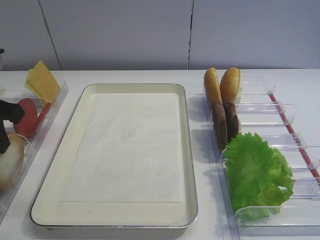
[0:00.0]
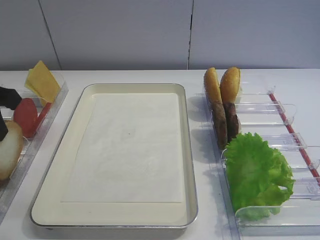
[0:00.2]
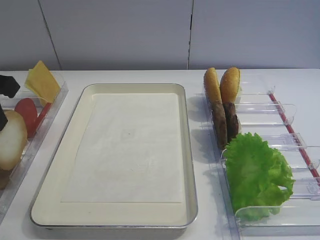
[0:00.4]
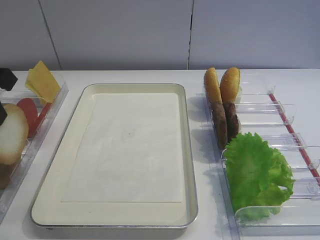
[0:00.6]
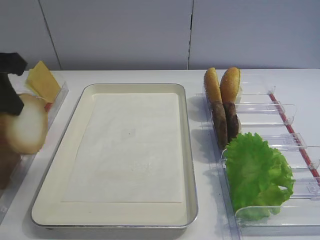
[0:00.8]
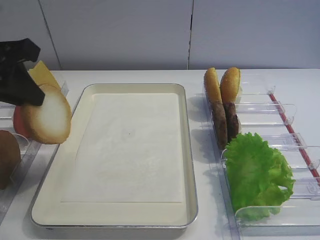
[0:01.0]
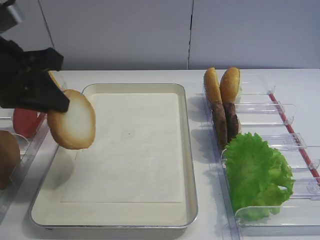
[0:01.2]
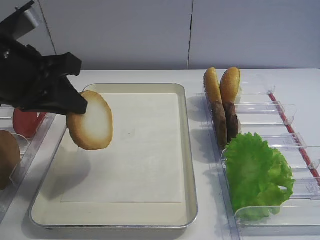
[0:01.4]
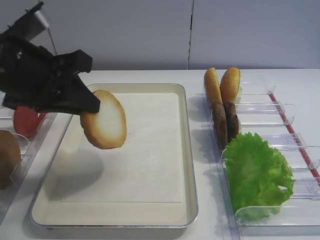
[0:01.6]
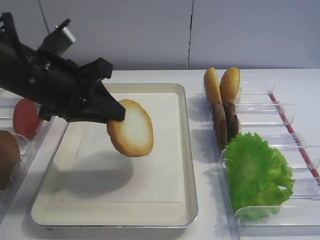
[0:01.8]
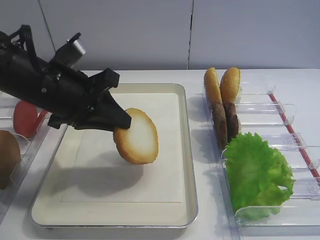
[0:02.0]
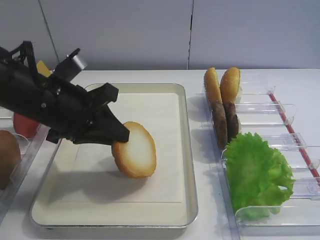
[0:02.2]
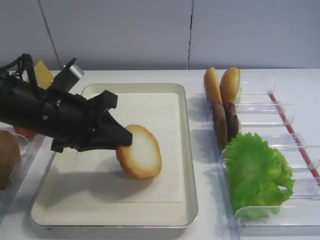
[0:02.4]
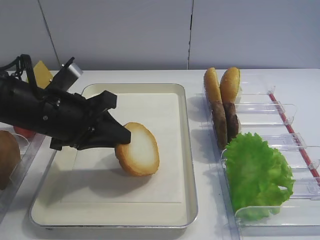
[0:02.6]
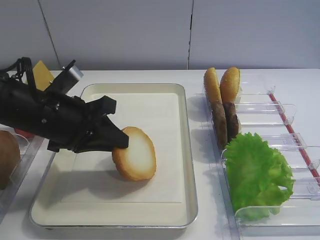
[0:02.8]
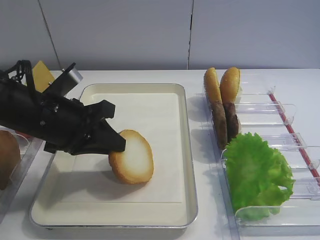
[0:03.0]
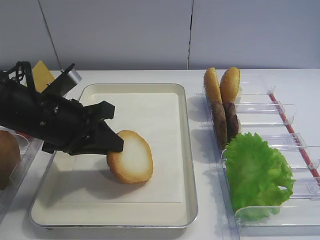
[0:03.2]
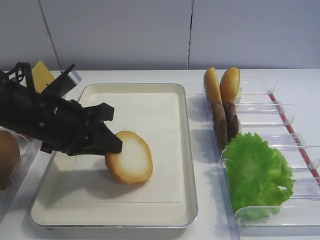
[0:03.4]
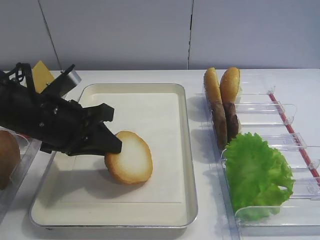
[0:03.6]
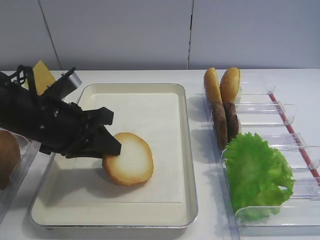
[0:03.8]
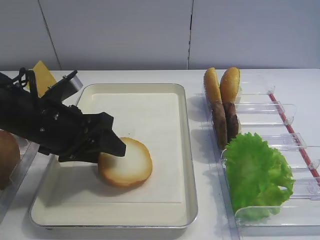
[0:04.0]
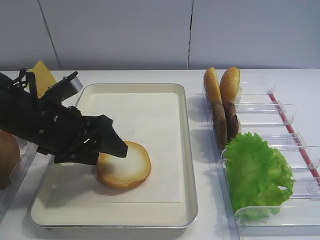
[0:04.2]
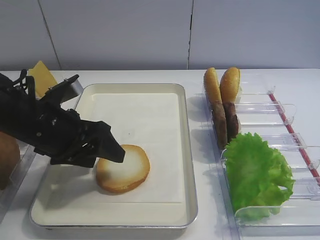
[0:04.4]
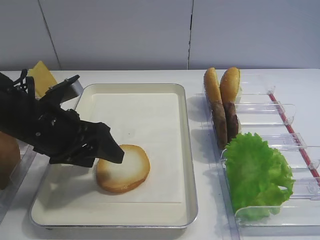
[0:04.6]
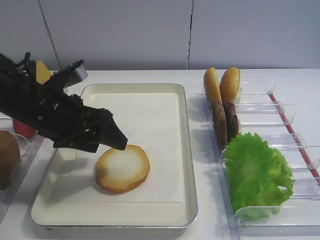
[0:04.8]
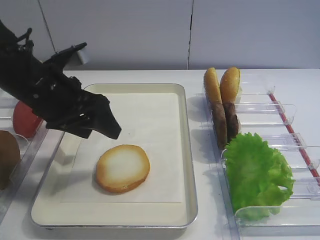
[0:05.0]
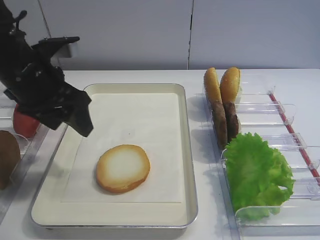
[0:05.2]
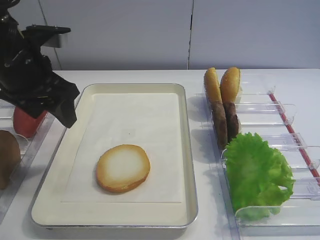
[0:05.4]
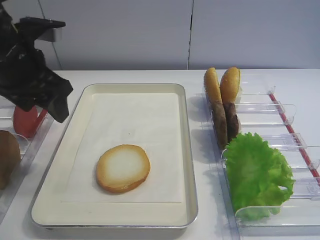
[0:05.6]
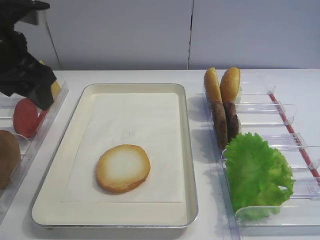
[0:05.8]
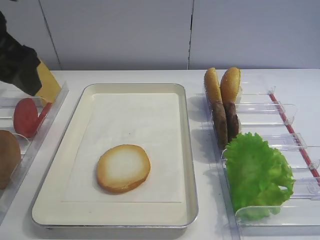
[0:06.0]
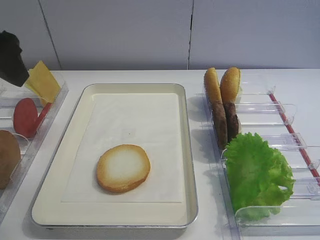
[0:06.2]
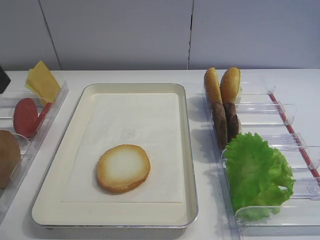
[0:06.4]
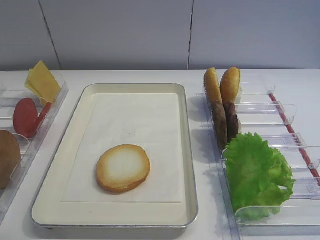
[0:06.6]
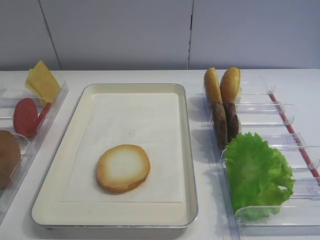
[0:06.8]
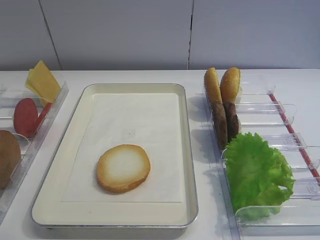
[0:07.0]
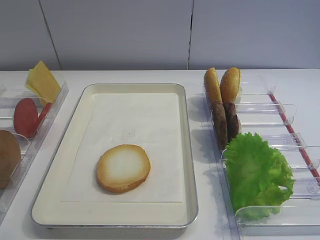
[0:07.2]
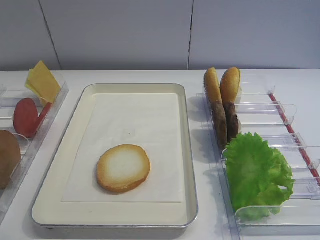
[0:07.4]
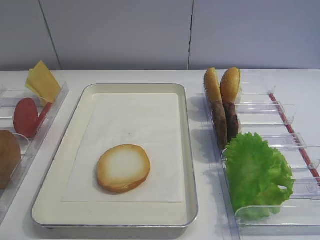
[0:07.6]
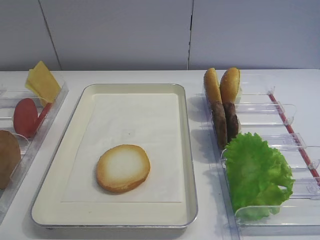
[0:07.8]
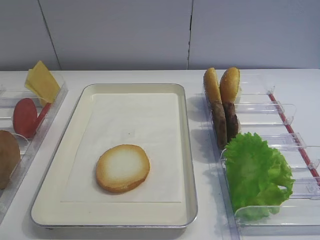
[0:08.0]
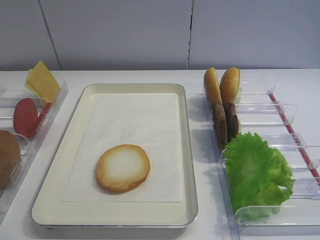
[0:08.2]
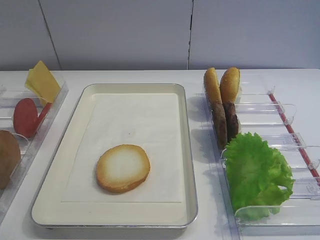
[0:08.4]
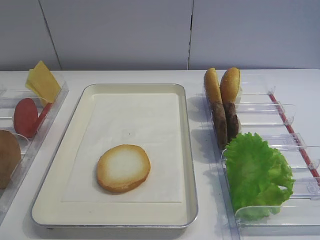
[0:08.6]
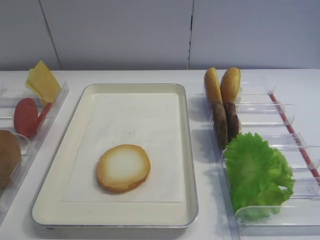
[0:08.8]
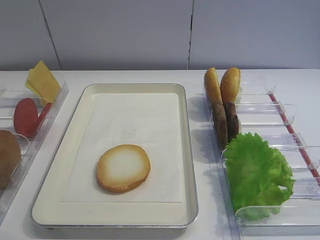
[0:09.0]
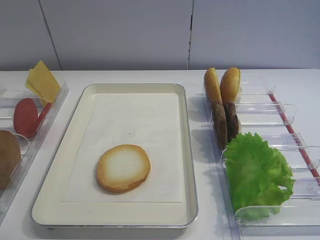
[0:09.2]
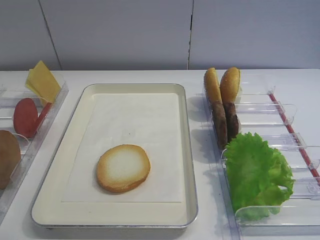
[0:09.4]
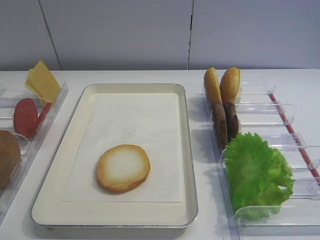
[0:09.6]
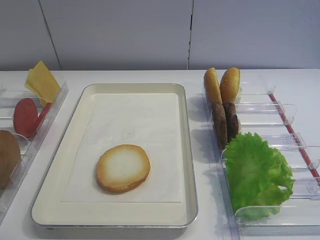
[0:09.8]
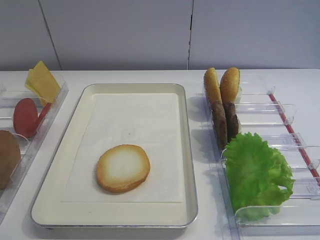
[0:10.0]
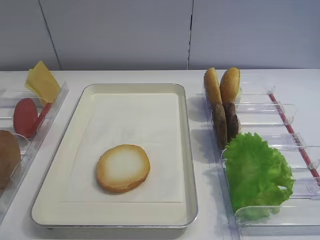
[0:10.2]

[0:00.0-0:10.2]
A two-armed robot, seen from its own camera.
Step, 0:00.6 to 0:04.6: Place the bread slice on the tray with the left gripper.
0:00.0 to 0:01.4: The left gripper is displaced to the right by approximately 5 cm.
0:01.4 to 0:03.0: The left gripper goes some 10 cm downward.
0:03.0 to 0:04.4: The left gripper opens.
0:04.4 to 0:05.8: The left gripper is displaced upward by about 10 cm.
0:05.8 to 0:07.2: The left gripper goes approximately 25 cm backward.
